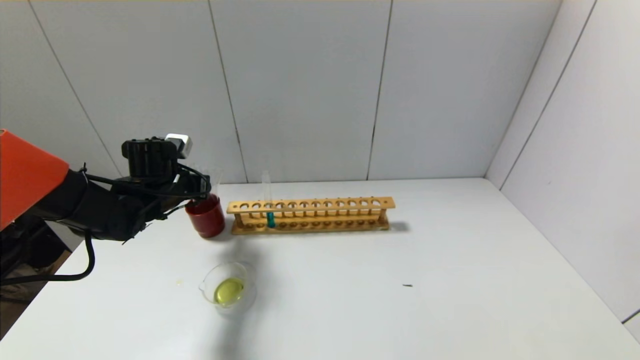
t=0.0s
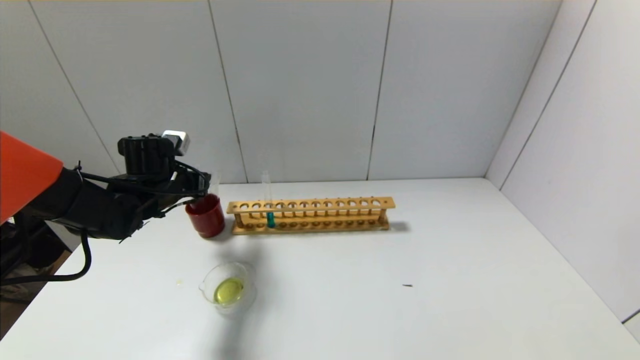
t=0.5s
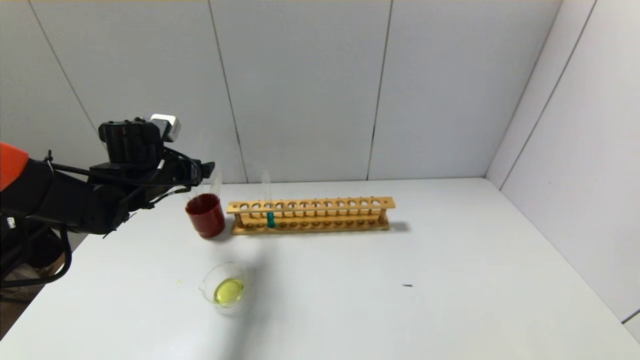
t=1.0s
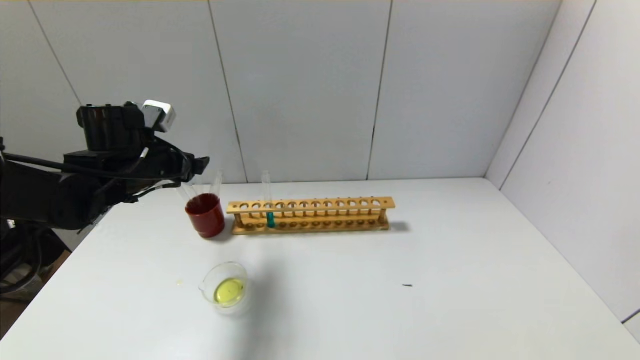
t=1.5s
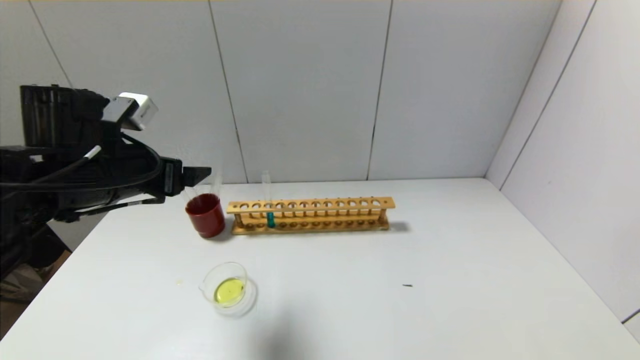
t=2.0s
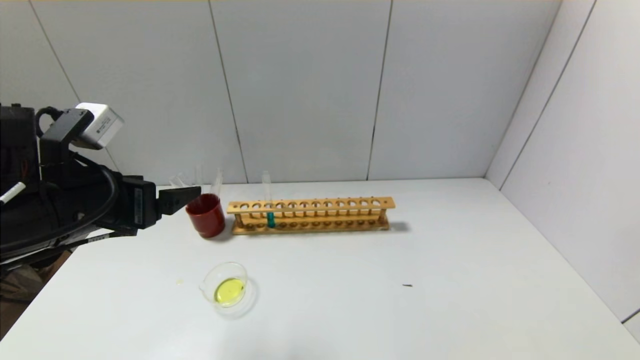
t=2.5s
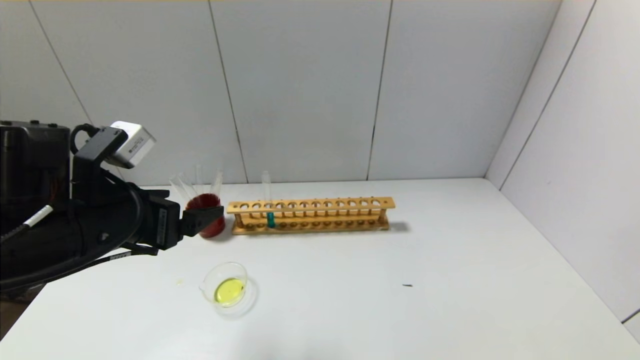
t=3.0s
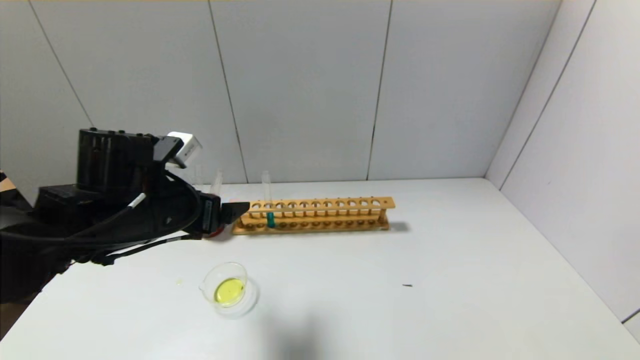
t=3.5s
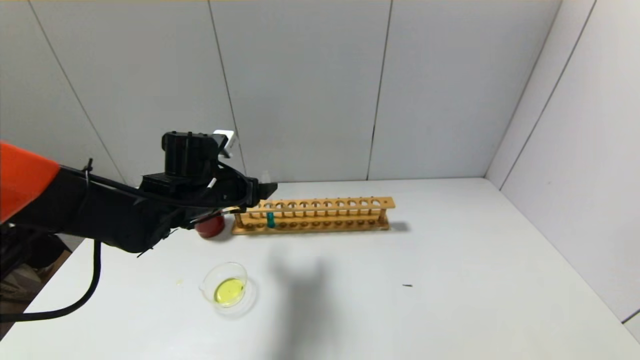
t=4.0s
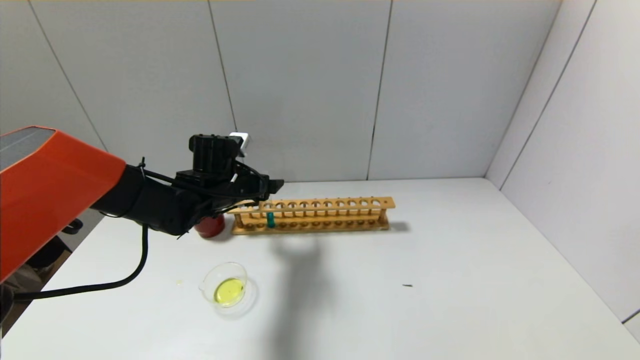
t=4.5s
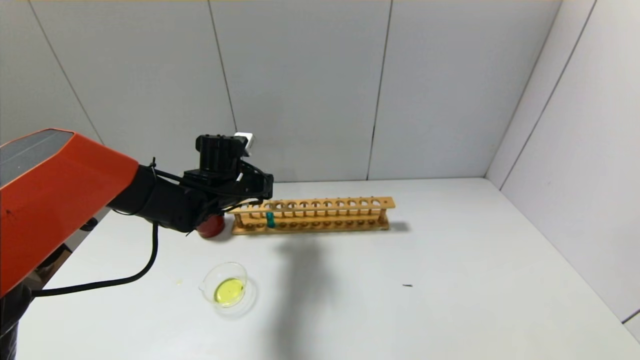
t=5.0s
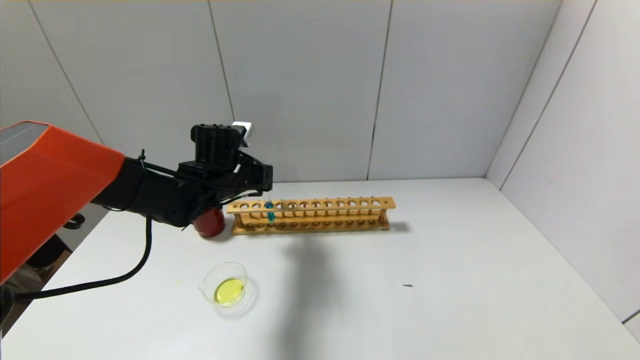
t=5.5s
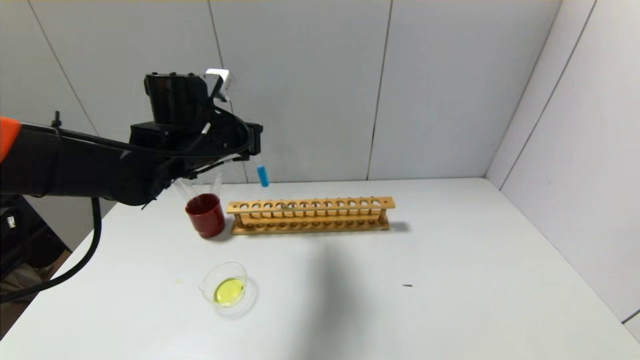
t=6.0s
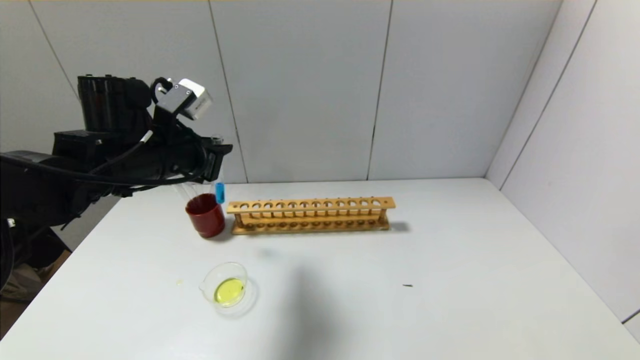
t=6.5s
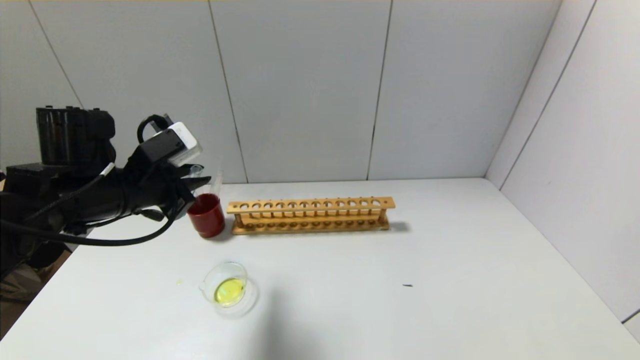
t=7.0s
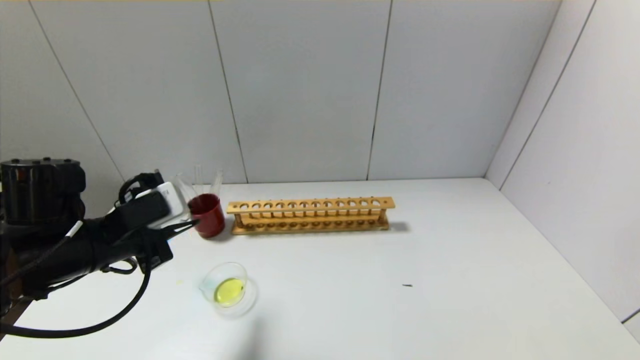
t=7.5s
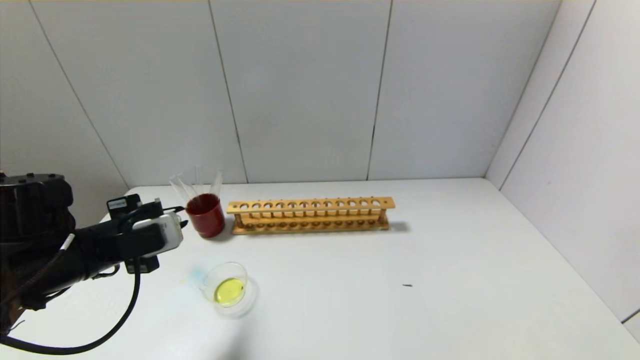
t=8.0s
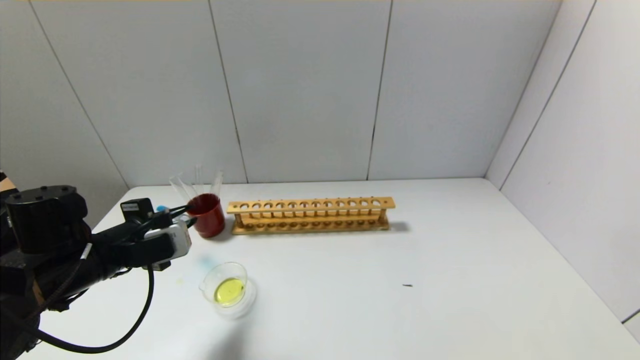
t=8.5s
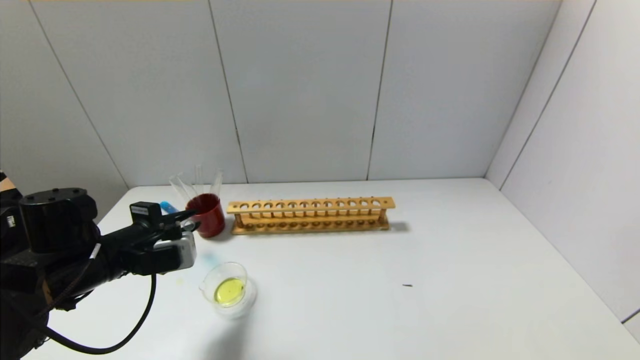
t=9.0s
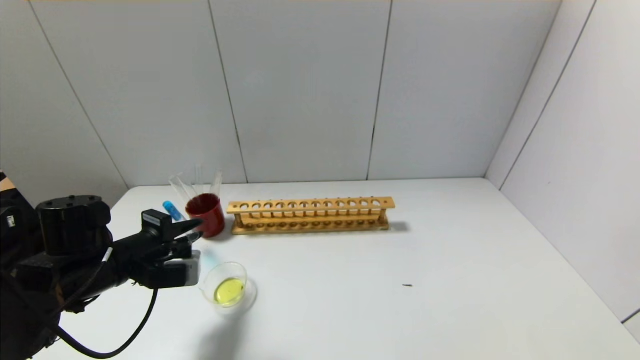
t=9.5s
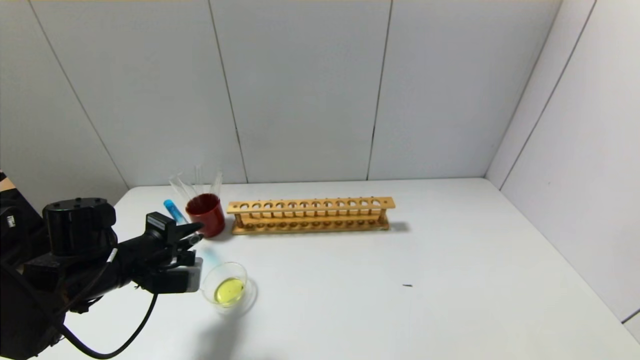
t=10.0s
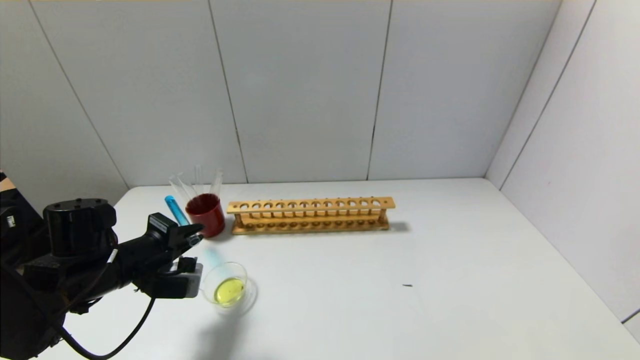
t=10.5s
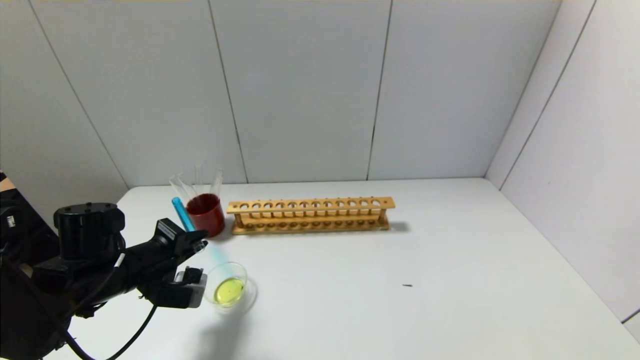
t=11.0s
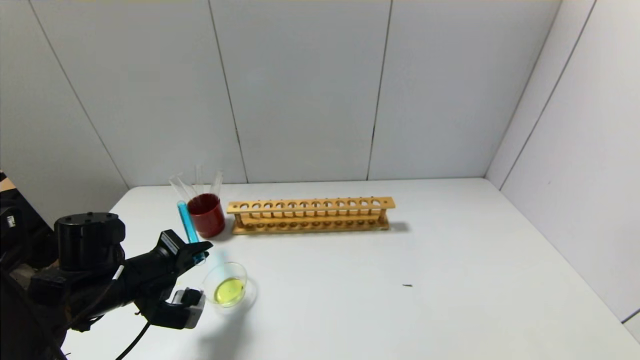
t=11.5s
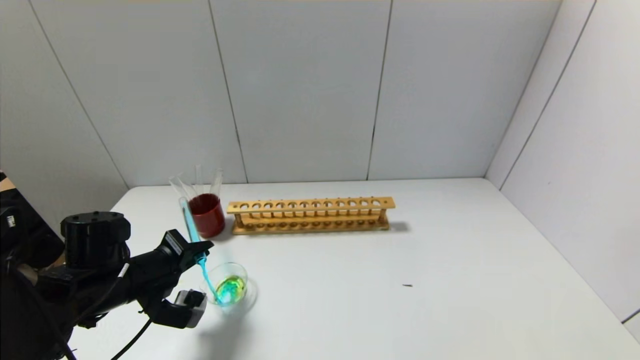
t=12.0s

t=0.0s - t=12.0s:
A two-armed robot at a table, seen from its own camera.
Step, t=1.0s - t=5.0s: Grasp the blue reagent with the left gripper.
t=0.0s - t=2.0s: The left gripper travels backward and upward by about 15 cm, and opens its fingers.
t=2.0s - t=4.0s: The left gripper shifts roughly 15 cm forward, downward and to the right.
t=4.0s - t=6.0s: The left gripper shifts about 10 cm upward, and closes.
t=6.0s - t=8.0s: The left gripper shifts some 20 cm backward, to the left and downward.
t=8.0s - t=10.0s: The left gripper shifts approximately 5 cm downward.
t=10.0s - t=12.0s: The grippers make only small movements.

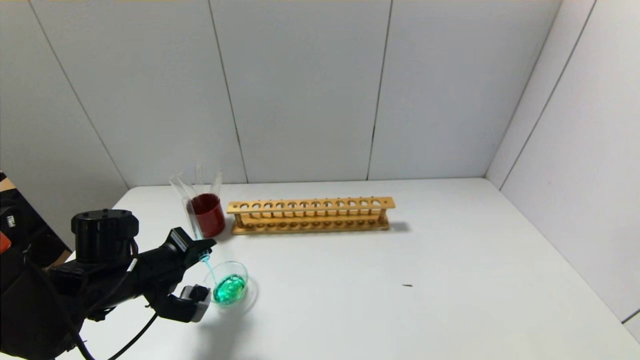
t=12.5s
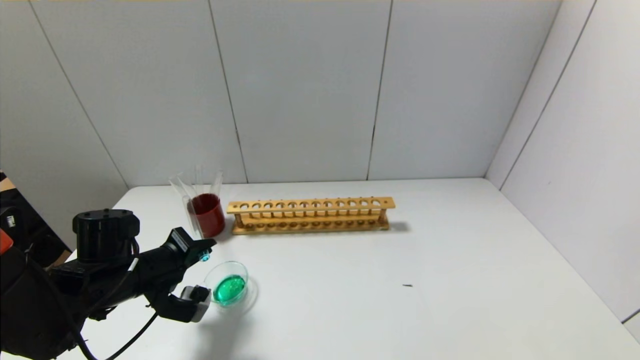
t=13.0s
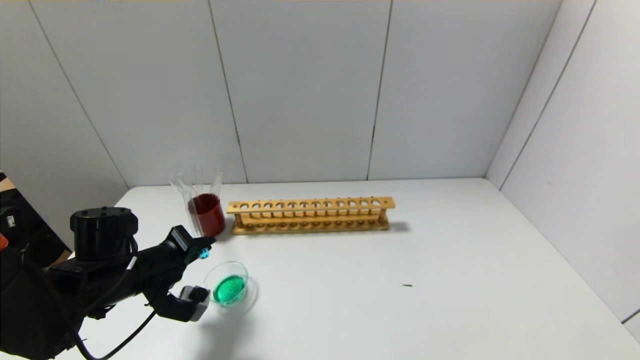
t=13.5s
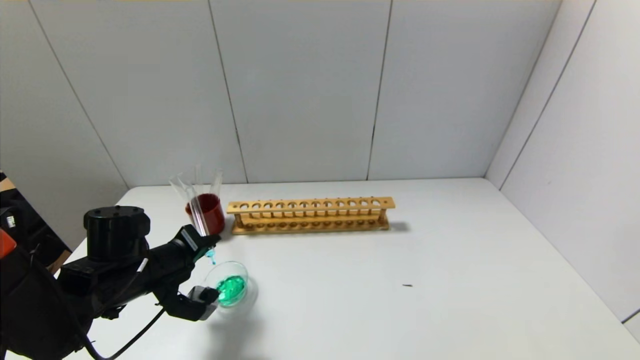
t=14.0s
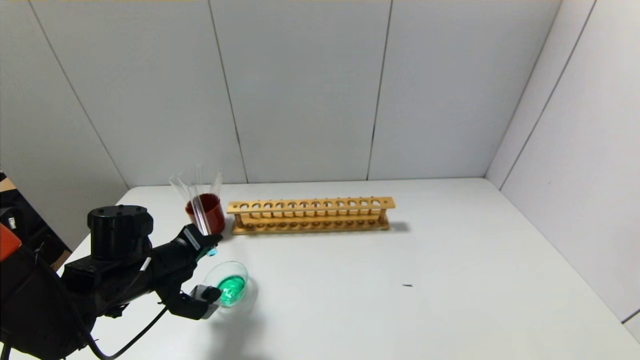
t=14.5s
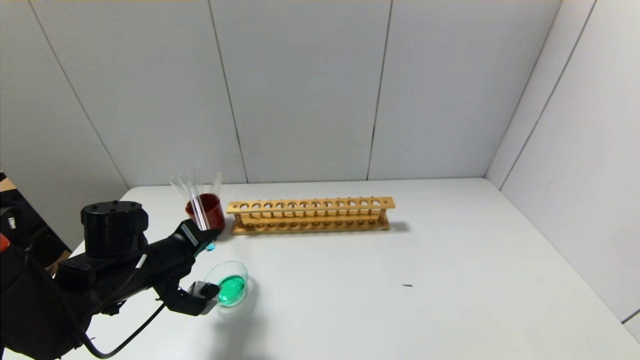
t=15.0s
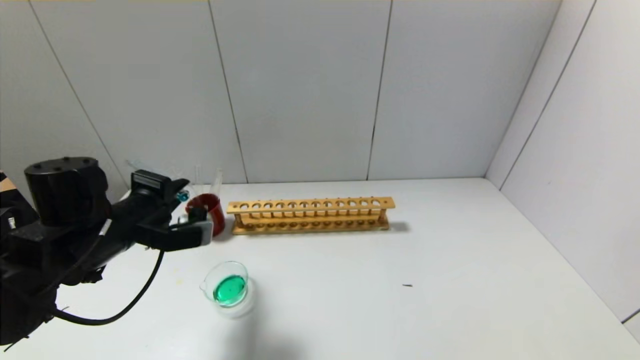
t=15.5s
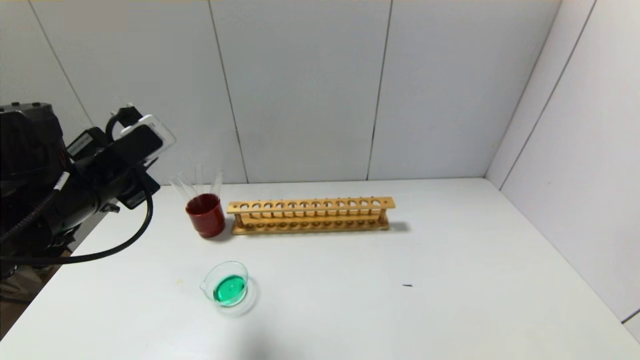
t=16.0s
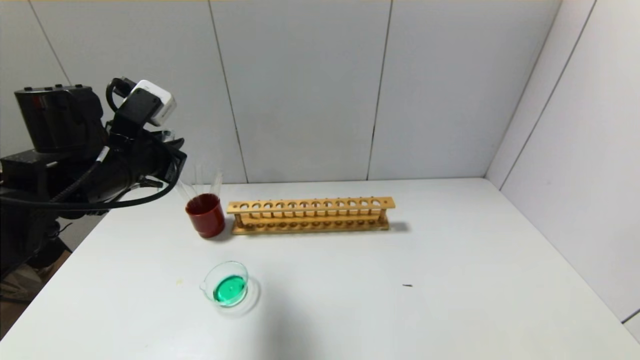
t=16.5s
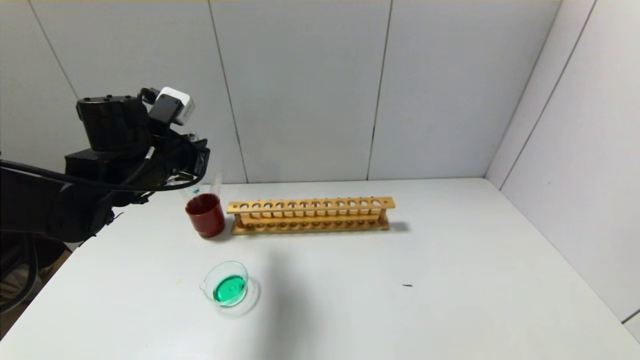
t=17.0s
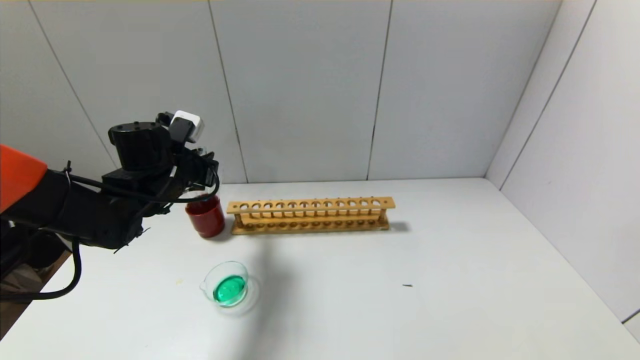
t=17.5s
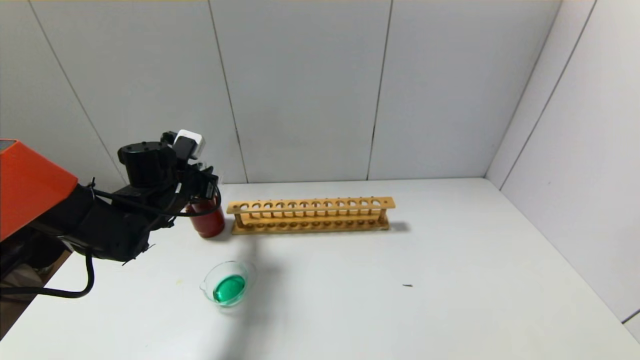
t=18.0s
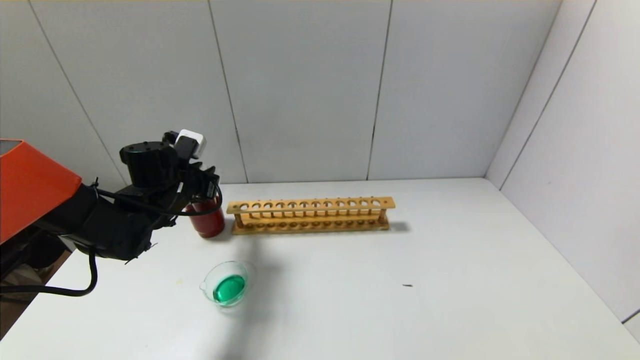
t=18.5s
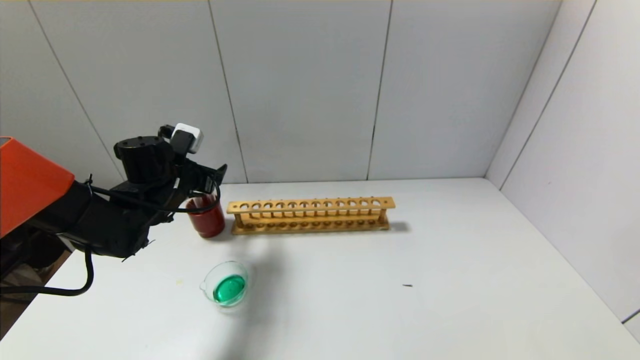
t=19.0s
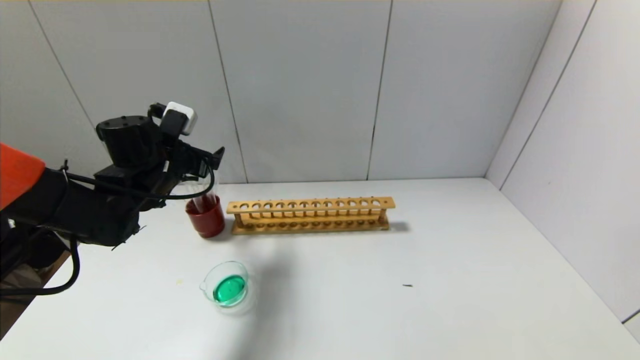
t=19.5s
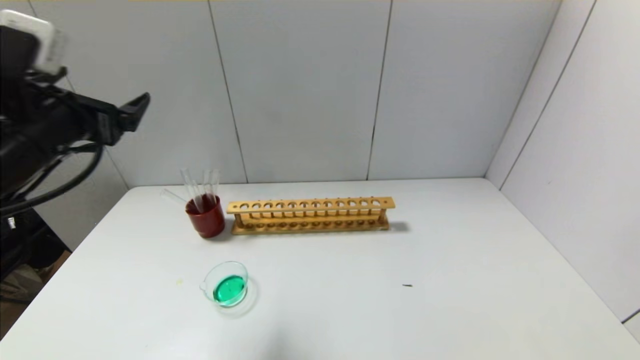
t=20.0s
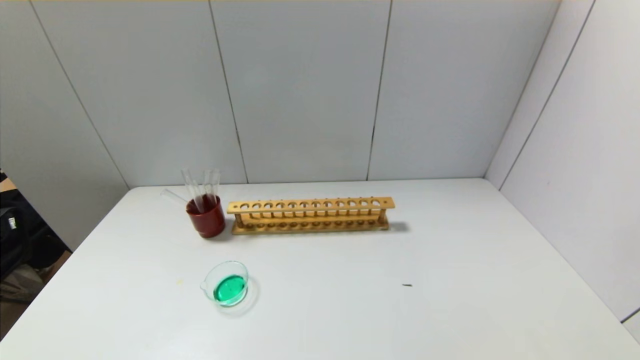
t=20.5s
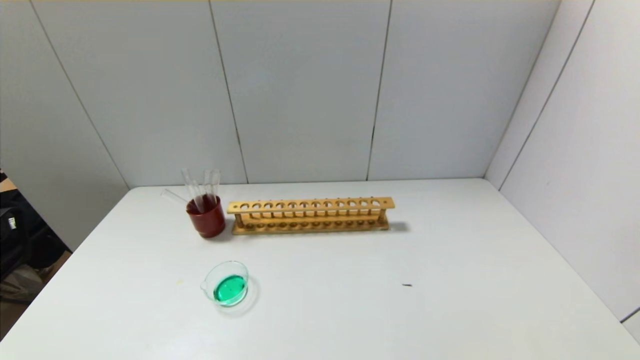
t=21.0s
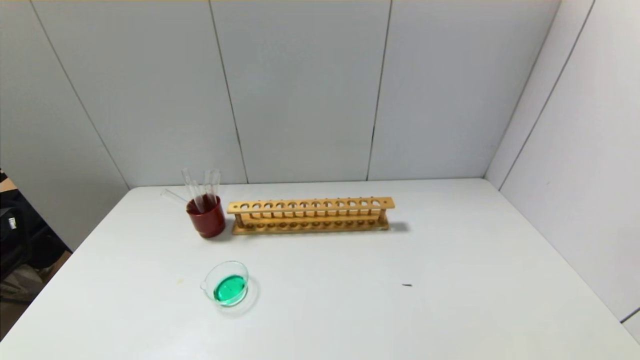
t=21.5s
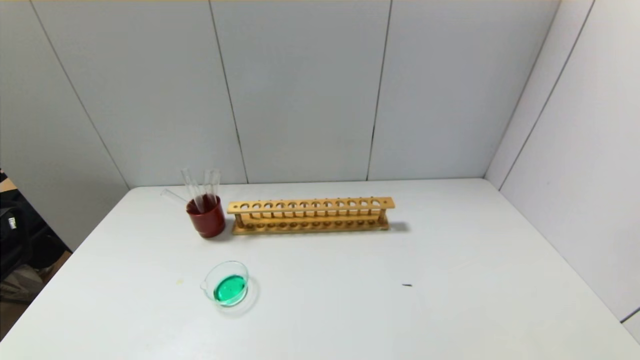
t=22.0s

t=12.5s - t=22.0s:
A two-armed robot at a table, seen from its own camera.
Step, t=12.5s - t=15.0s: Pour the blue reagent into the graduated cylinder with the left gripper.
Step, t=15.5s - t=18.5s: Place the test tube into the brown cup with the left gripper.
t=12.5s - t=14.5s: The grippers move only a little.
t=14.5s - t=16.5s: The left gripper travels upward by some 15 cm.
t=16.5s - t=18.0s: The left gripper goes about 15 cm downward and forward.
t=18.0s - t=20.0s: The left gripper is displaced backward and upward by some 20 cm, and opens up.
t=20.0s - t=22.0s: The left gripper goes about 30 cm backward and downward.
